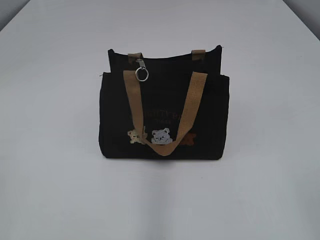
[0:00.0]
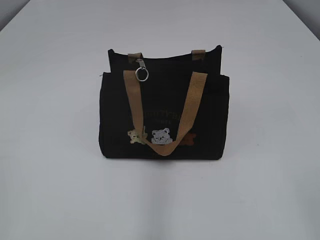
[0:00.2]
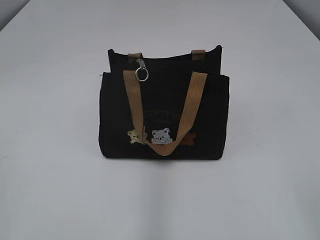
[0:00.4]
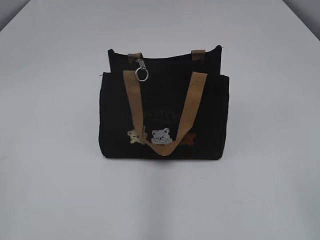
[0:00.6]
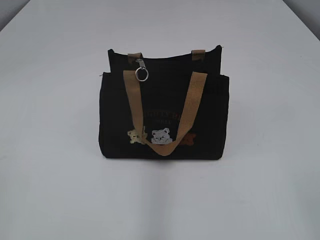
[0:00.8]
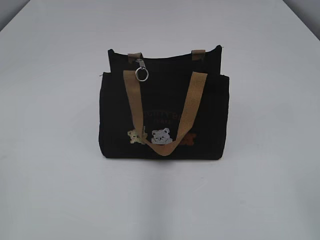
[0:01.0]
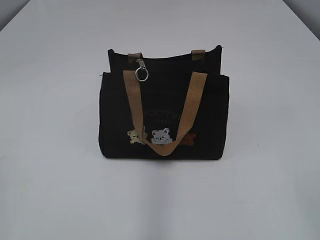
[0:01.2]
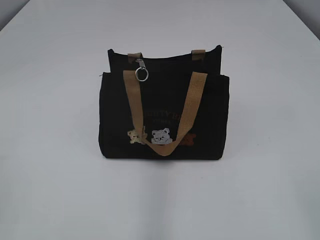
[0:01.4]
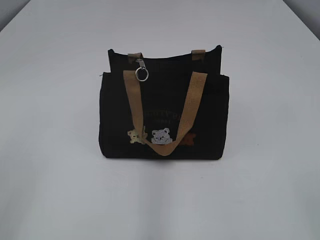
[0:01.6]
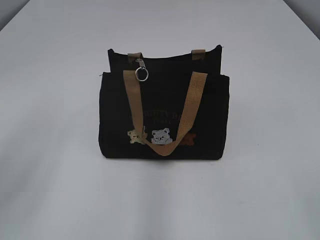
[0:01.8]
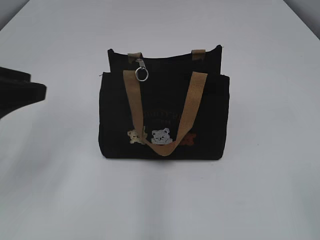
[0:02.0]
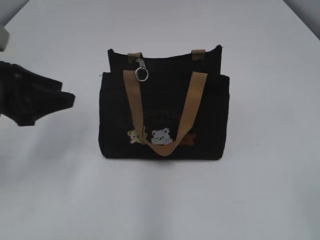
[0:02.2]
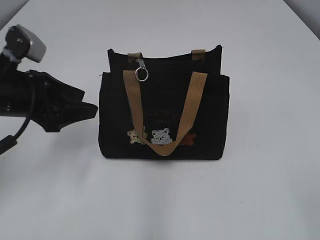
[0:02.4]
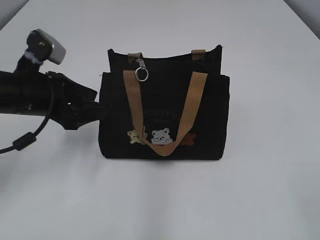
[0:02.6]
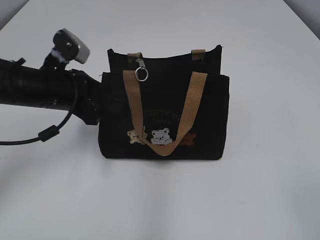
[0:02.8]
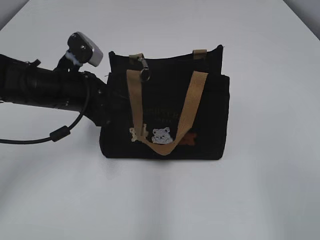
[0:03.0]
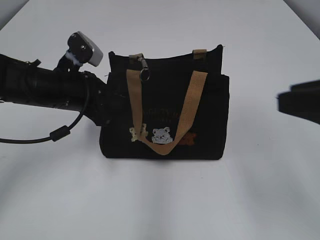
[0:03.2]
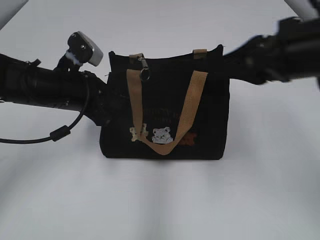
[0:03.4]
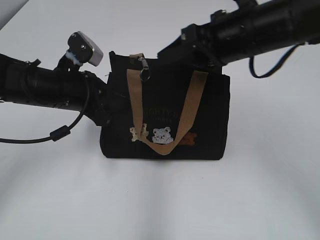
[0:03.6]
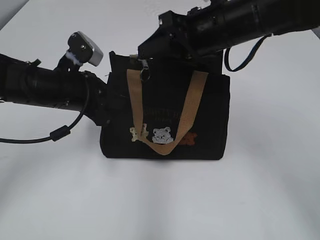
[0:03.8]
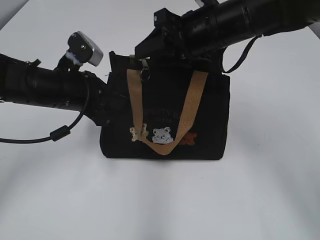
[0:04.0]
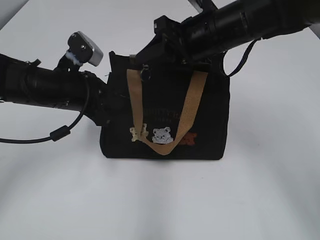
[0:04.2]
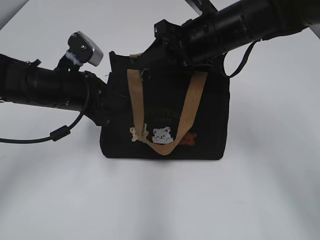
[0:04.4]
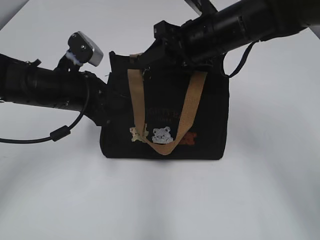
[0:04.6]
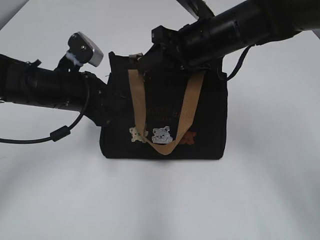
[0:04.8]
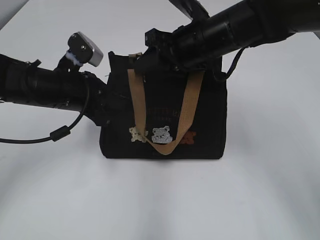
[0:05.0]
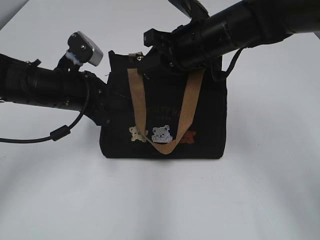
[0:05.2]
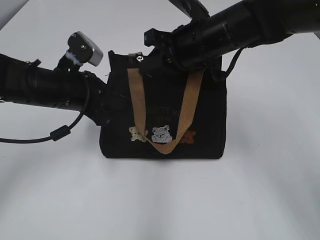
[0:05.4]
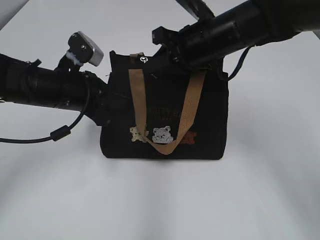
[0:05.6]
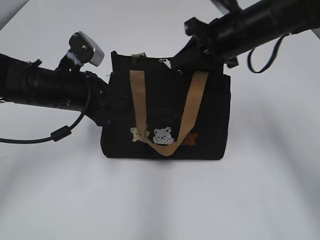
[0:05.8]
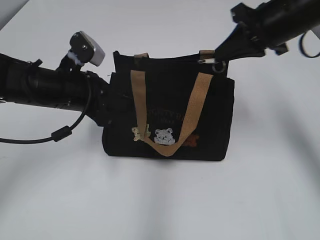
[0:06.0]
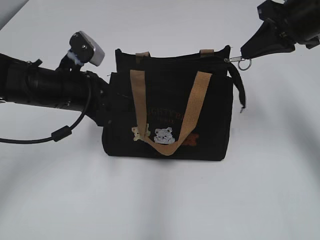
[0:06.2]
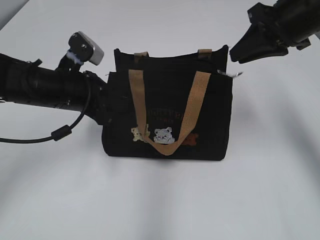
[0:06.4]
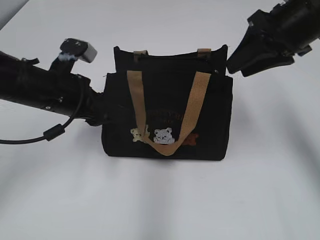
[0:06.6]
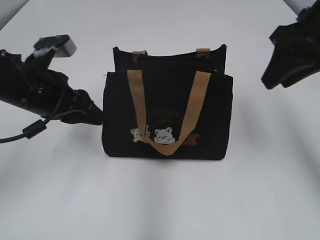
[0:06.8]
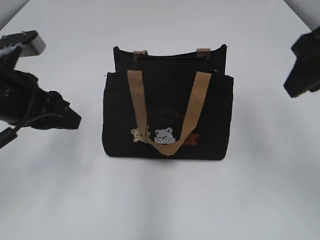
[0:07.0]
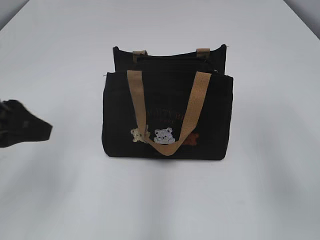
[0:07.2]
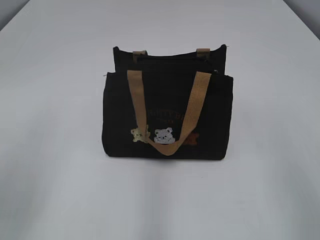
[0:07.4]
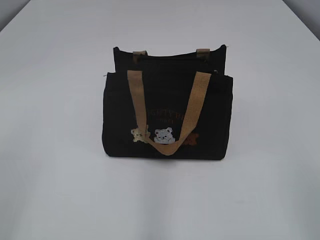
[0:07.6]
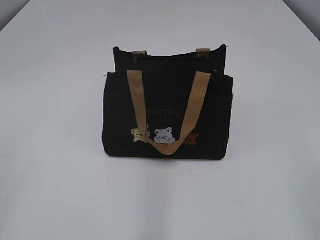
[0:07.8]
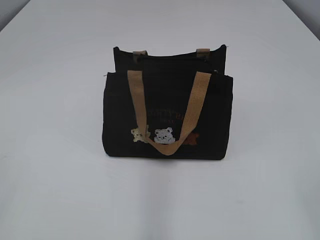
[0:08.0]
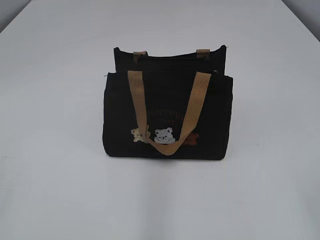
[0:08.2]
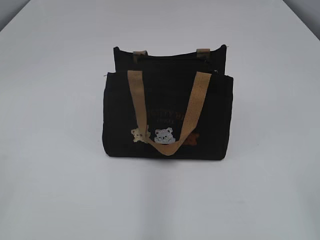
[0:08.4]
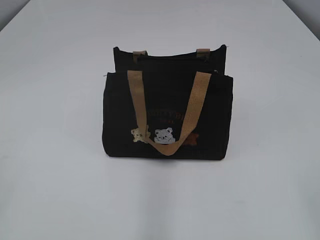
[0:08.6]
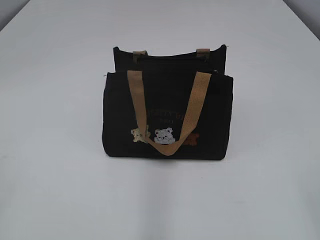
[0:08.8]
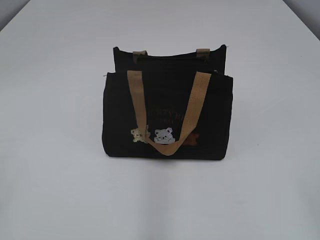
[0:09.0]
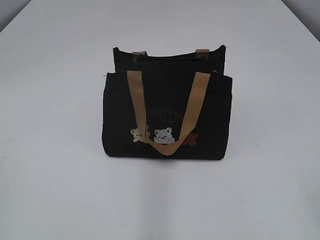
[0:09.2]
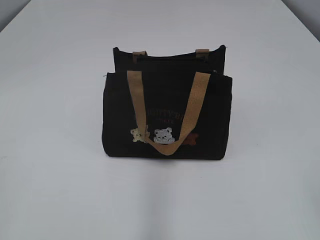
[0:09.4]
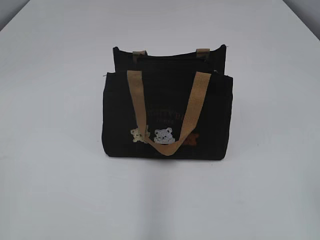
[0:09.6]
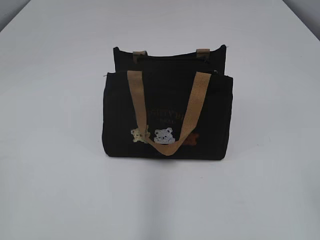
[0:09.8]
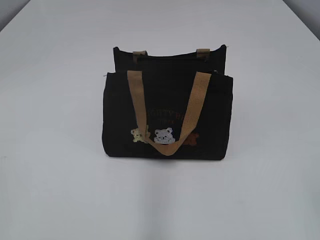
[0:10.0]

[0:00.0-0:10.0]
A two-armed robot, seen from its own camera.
Step, 0:00.0 to 0:06.2: Pull open the zipper with your right hand.
Step, 0:06.6 to 0:06.8: Hold the bag with your left hand.
0:01.4 to 0:02.8: The left gripper is displaced forward and to the right by roughly 35 cm, and opens its fingers.
0:02.8 to 0:04.2: The right gripper shifts roughly 40 cm forward and to the left. The left gripper closes.
0:04.2 to 0:05.8: The right gripper closes up.
0:05.8 to 0:07.2: The right gripper travels backward and upward by some 20 cm, and opens; the left gripper goes roughly 15 cm backward, upward and to the left, and opens up.
0:07.2 to 0:08.6: The left gripper shifts approximately 20 cm backward and to the left.

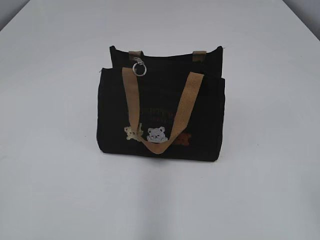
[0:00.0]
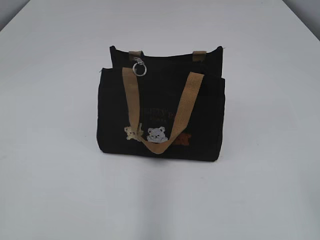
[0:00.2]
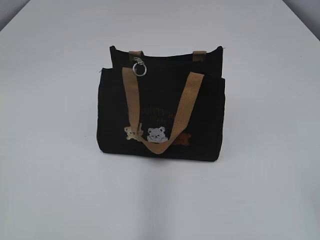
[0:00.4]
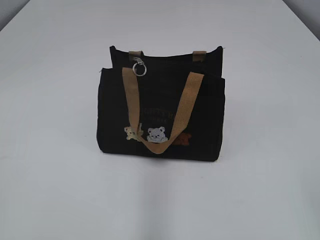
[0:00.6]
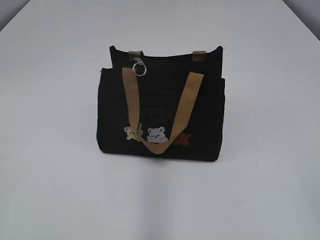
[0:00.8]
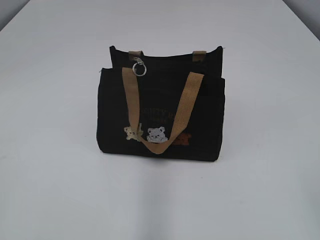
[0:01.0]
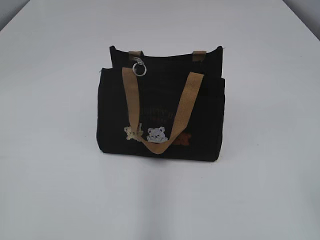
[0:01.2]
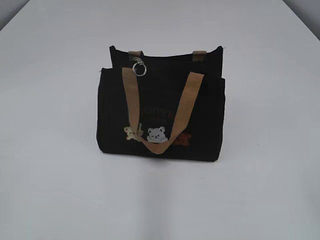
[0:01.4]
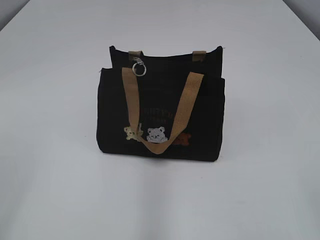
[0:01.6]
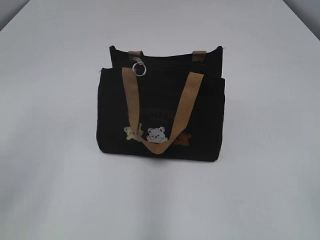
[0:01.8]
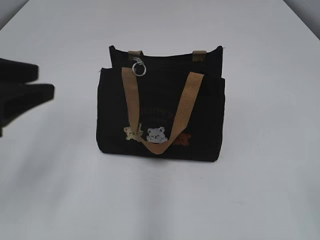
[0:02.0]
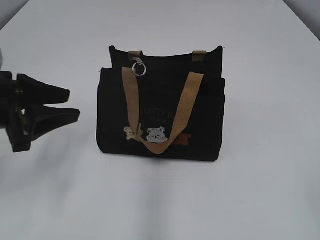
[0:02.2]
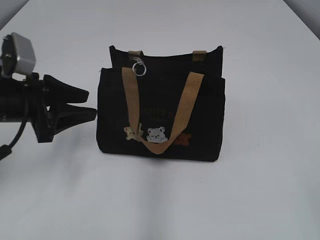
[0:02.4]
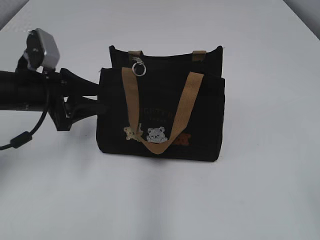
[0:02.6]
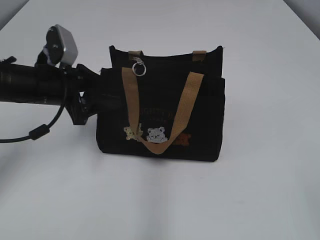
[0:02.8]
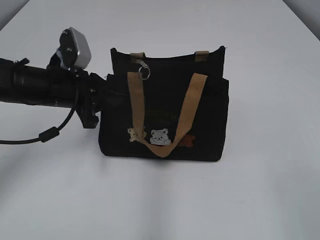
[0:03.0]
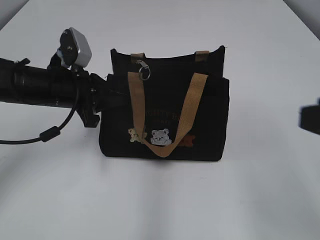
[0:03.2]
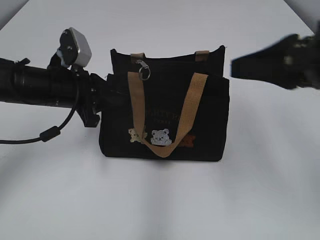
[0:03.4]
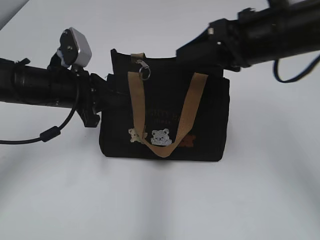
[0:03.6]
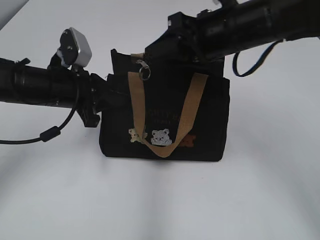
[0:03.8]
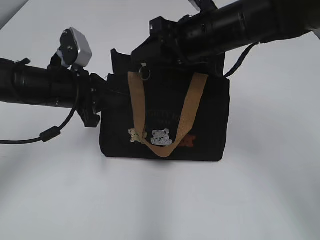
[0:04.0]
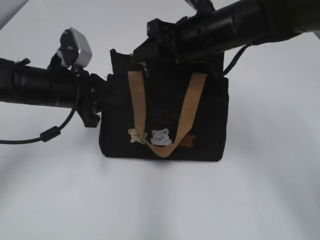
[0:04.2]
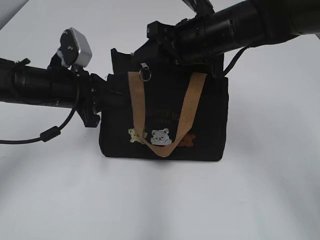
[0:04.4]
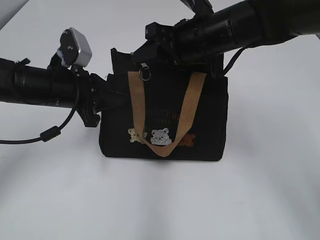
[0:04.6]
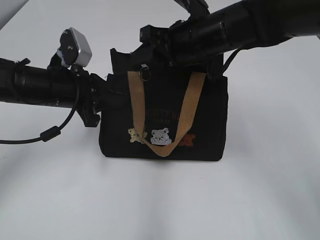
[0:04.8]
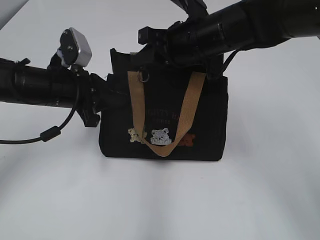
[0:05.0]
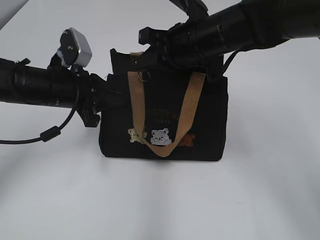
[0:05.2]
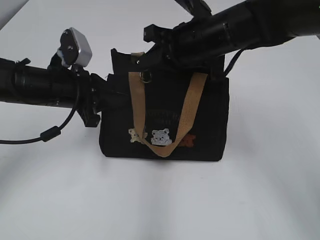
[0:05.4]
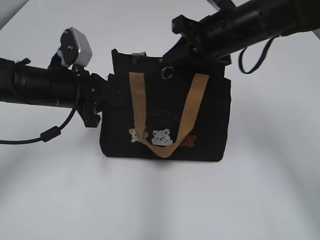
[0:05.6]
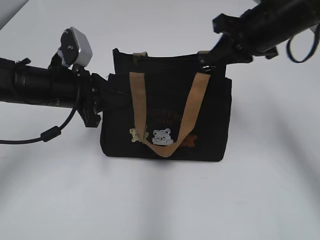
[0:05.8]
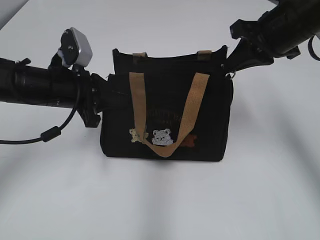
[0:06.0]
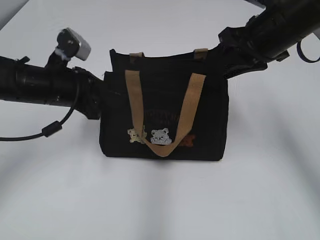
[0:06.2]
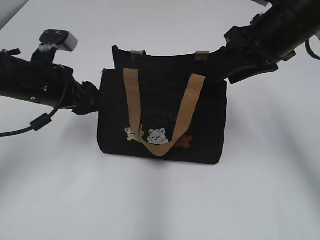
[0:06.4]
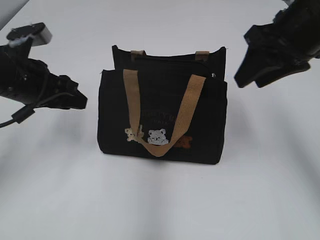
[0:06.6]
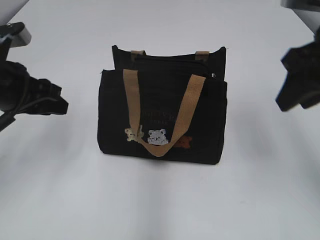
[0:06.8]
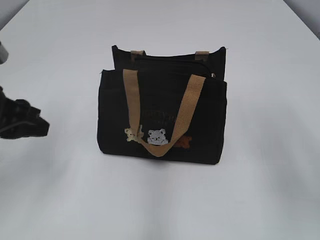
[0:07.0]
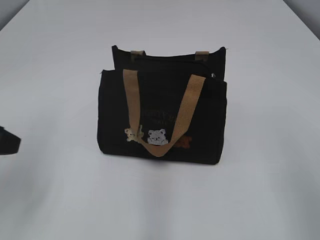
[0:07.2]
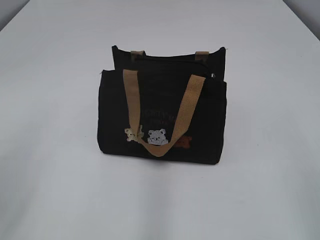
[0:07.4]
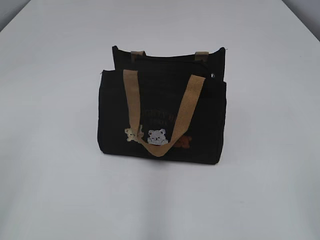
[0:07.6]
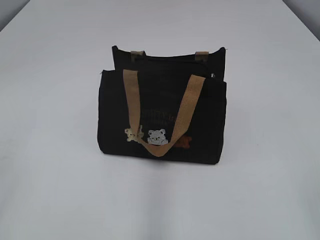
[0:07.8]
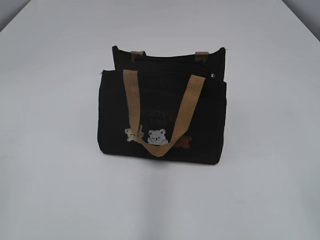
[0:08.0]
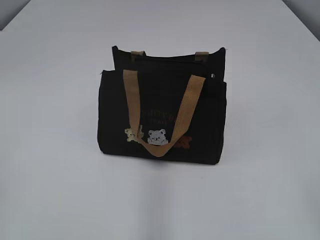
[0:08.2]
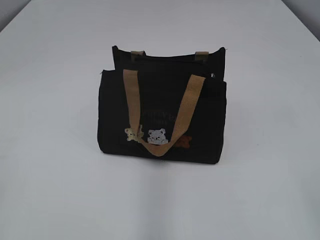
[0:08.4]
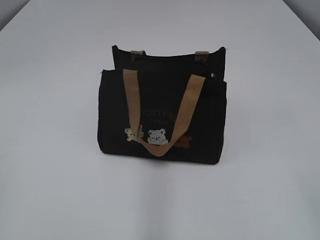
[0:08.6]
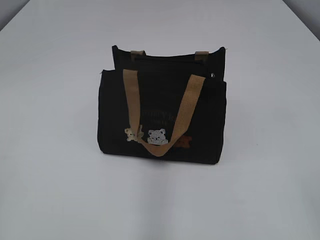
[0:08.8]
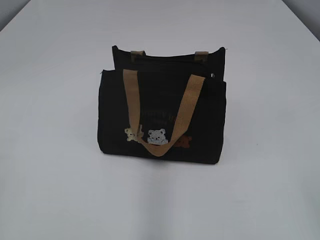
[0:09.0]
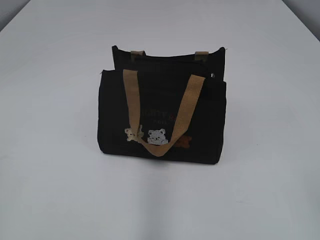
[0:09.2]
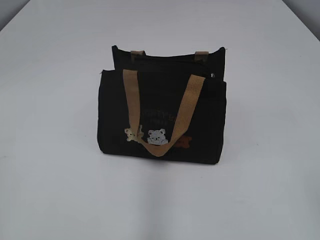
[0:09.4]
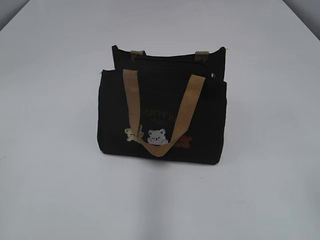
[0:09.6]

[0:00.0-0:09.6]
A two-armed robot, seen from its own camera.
Step, 0:00.0 to 0:06.4: Pull open the zipper with your right hand.
0:01.6 to 0:03.2: The right gripper is displaced forward by roughly 10 cm, while the left gripper heads forward, downward and to the right, covering about 35 cm, and opens and closes again.
0:03.2 to 0:04.8: The right gripper moves forward and to the left, approximately 30 cm.
0:04.8 to 0:06.4: The right gripper heads to the right, covering approximately 10 cm, and closes, then opens again. The left gripper opens up.
0:06.4 to 0:08.0: The right gripper travels backward by about 35 cm; the left gripper moves backward and to the left, approximately 30 cm, and closes its fingers.
